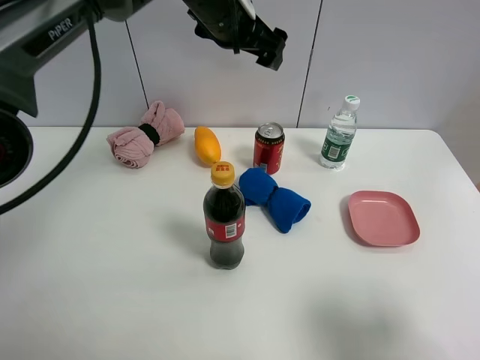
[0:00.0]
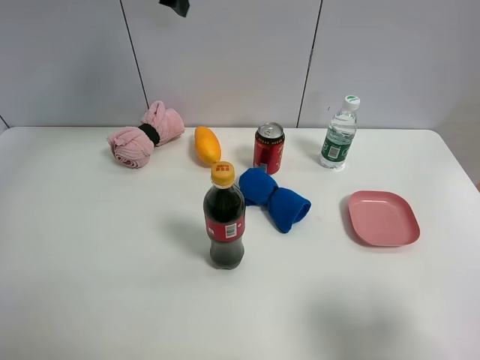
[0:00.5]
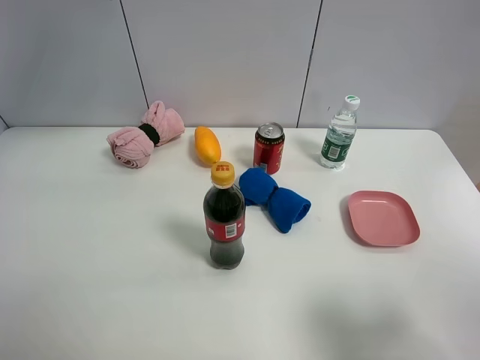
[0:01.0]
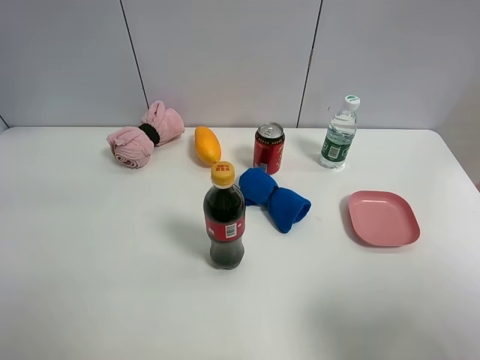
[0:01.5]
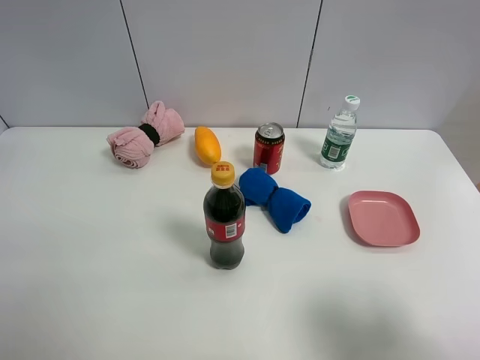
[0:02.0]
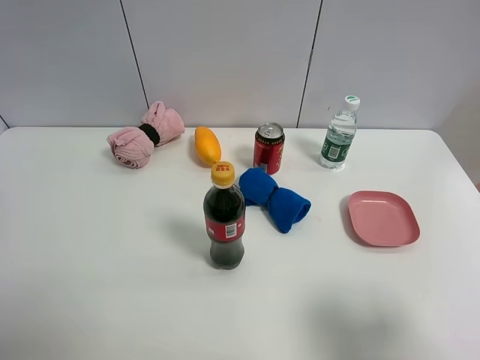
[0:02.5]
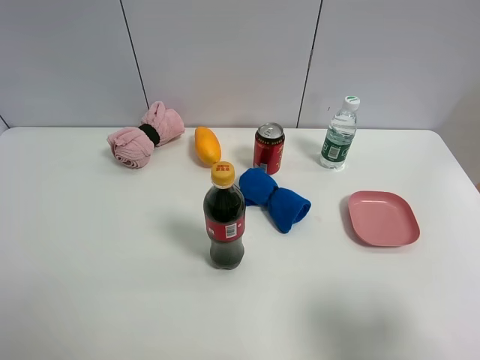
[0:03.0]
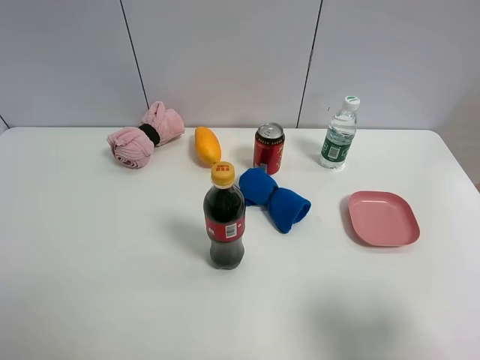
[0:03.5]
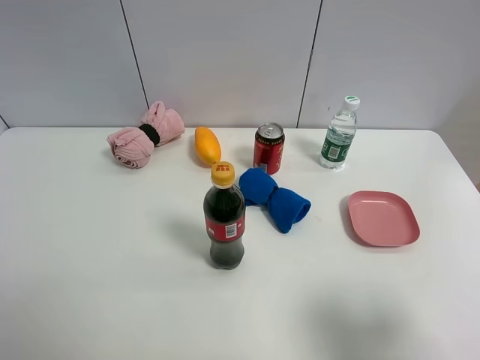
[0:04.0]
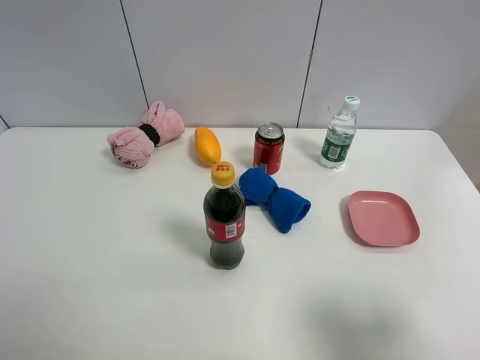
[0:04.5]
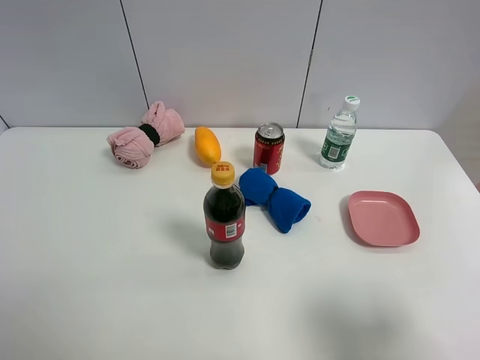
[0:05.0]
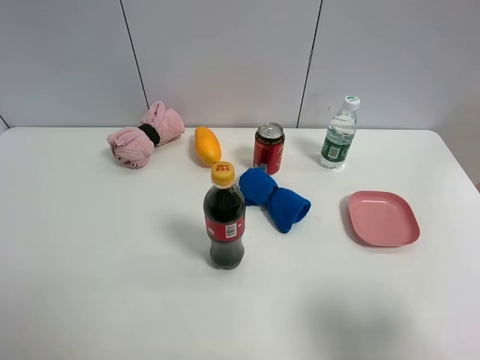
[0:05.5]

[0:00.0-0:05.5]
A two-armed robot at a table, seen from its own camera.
Task of the whole recording: the gripper move the object.
0.0 to 2.0 s: The left gripper travels to the left by about 30 cm.

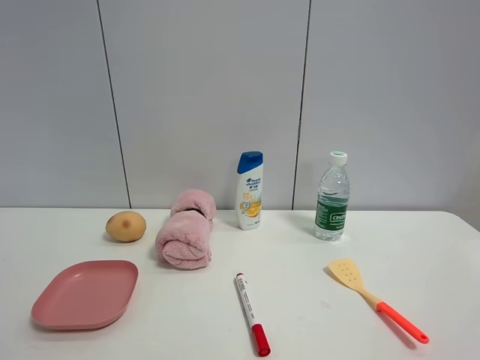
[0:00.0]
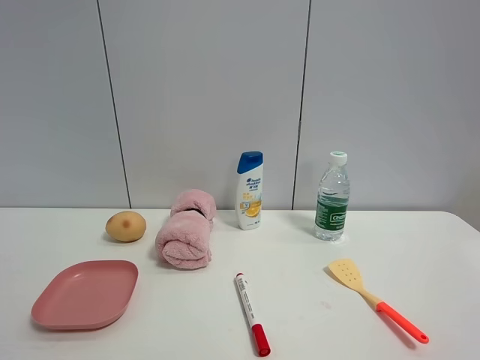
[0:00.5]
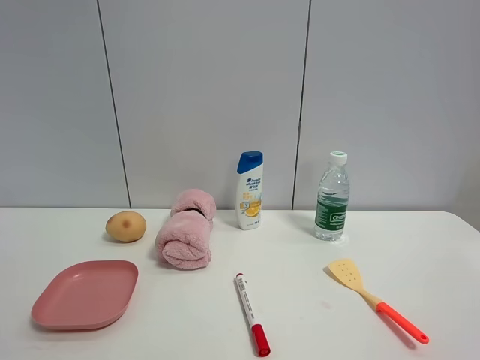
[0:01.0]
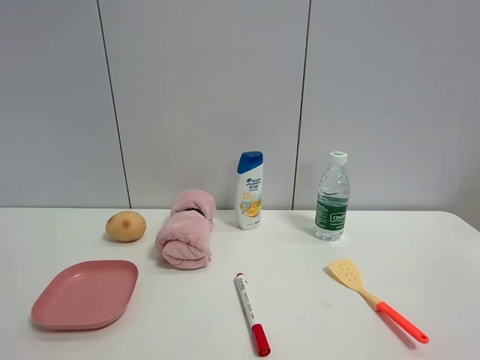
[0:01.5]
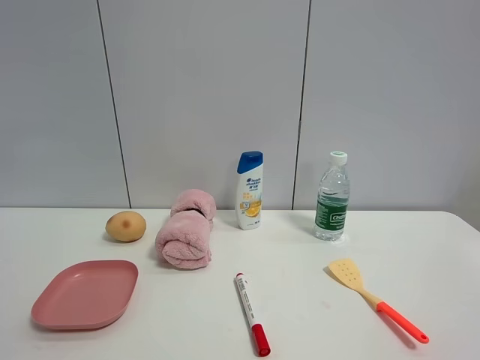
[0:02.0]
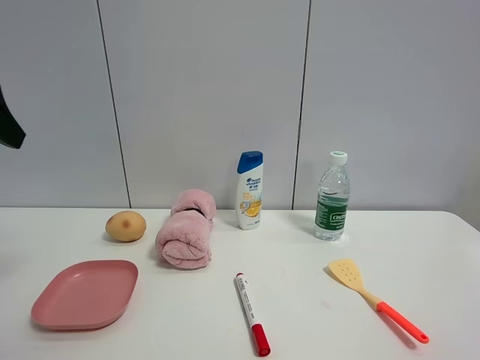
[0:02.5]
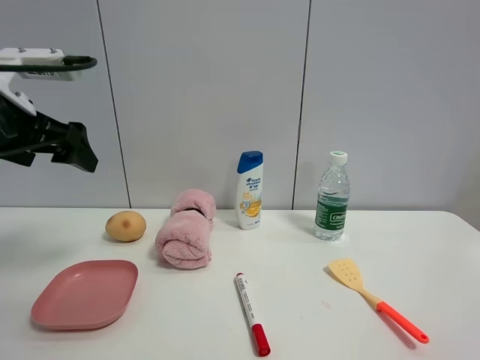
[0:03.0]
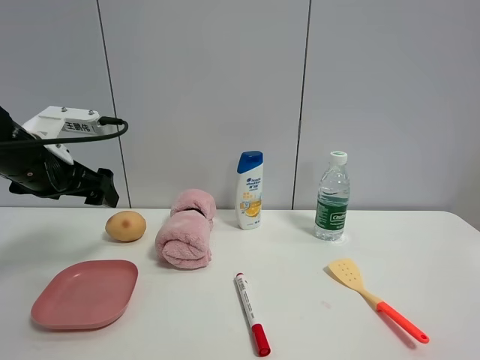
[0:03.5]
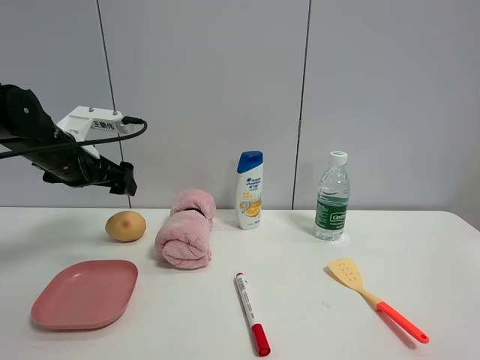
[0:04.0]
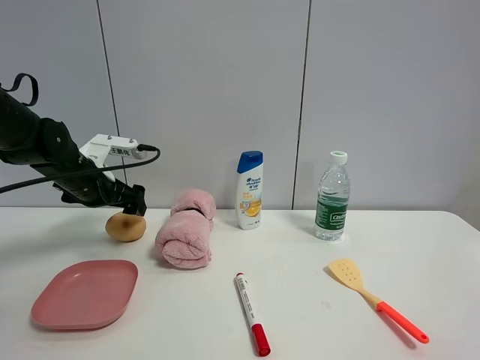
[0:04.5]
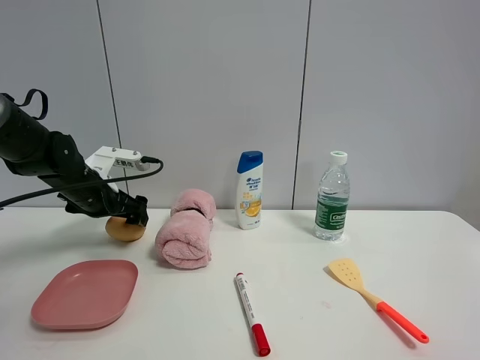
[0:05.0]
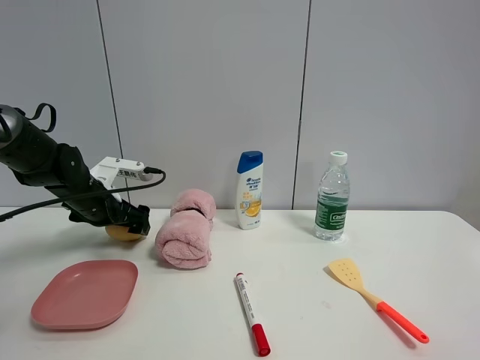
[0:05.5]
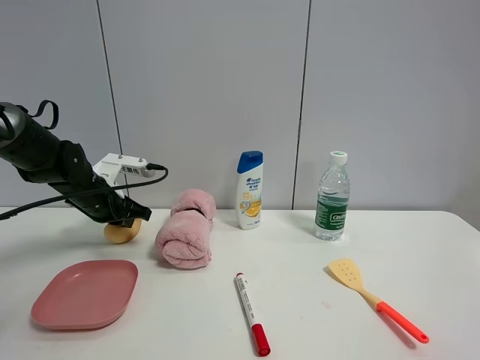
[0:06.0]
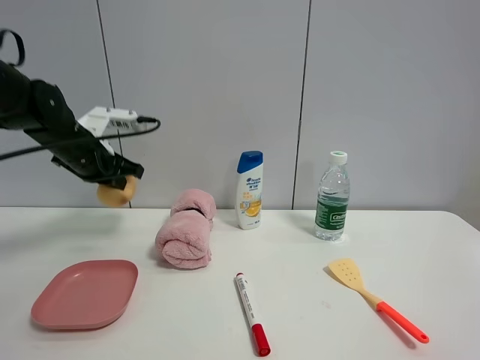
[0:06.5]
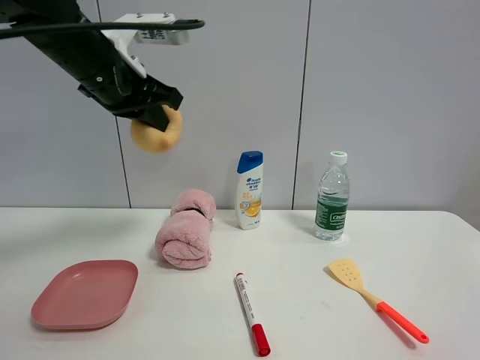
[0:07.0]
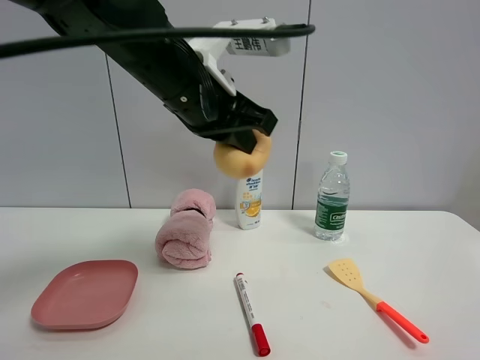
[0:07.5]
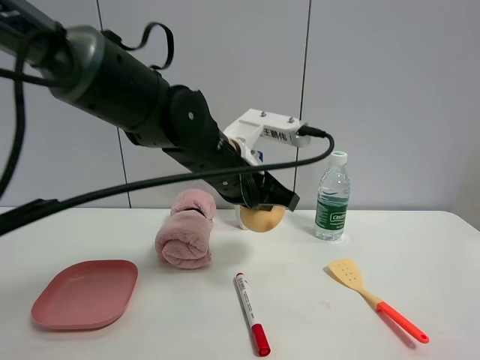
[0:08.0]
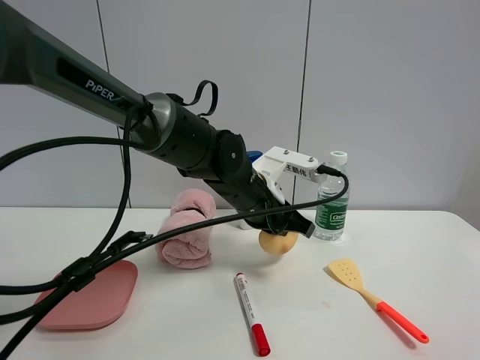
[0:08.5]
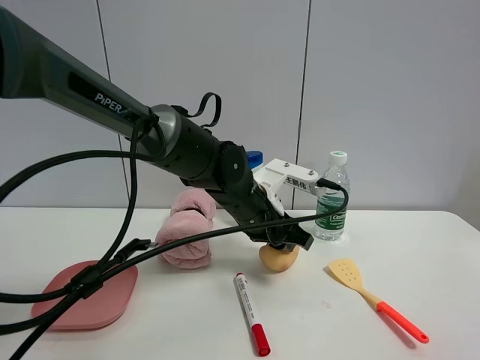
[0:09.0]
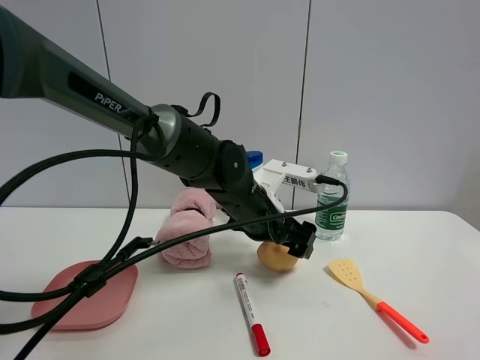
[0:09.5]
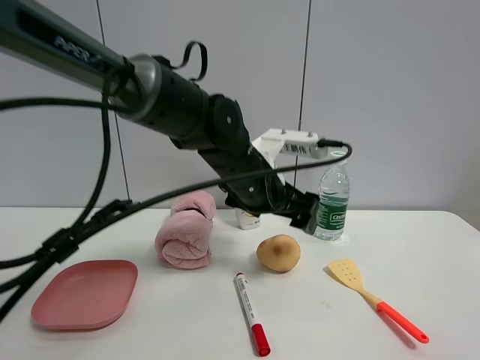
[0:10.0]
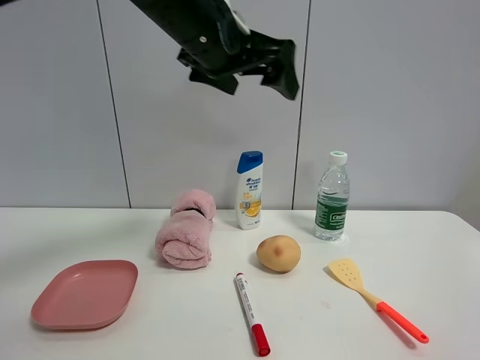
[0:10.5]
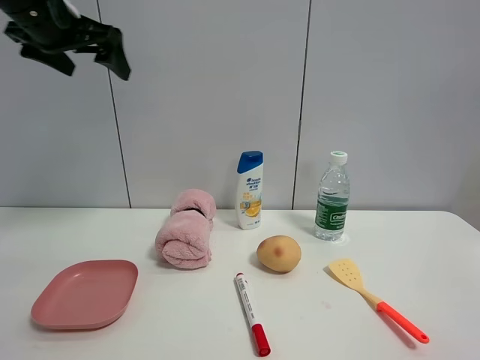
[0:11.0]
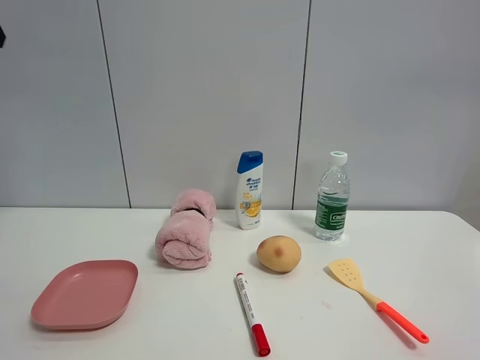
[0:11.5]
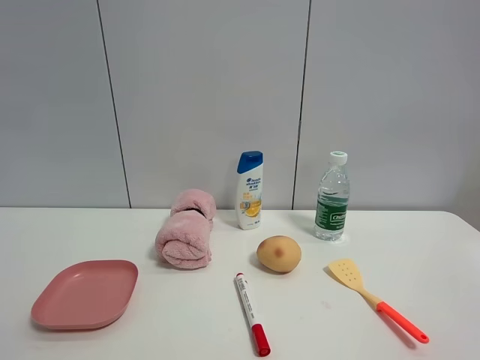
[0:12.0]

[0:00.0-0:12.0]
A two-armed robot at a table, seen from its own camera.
Task of the whole recording: the gripper move the object.
Step, 0.0 to 6.0 s: Grasp the egg yolk pastry with the left gripper.
Step, 6.5 to 9.0 s: Place the egg yolk pastry on the table with the left gripper.
2.0 to 4.0 s: The left gripper travels forward and downward by about 35 cm.
4.0 to 6.0 s: The left gripper goes some 10 cm downward, and closes.
6.0 to 8.0 s: The left gripper moves to the right and backward, about 25 cm.
8.0 to 10.0 s: The left gripper opens up.
10.0 to 12.0 s: The left gripper is displaced to the left, upward and backward by approximately 50 cm.

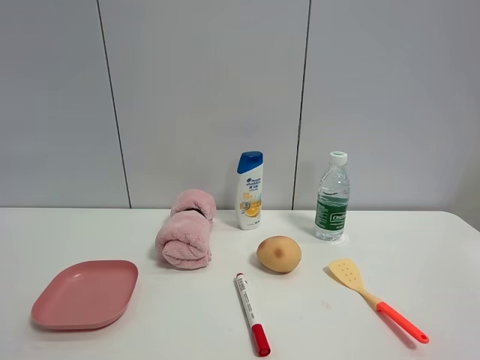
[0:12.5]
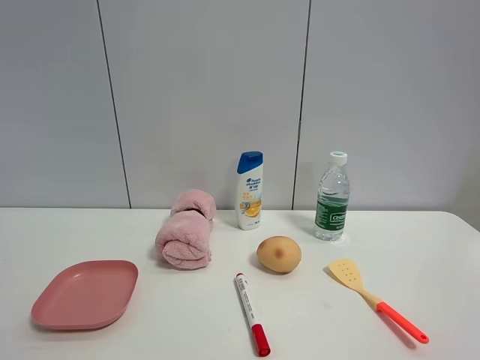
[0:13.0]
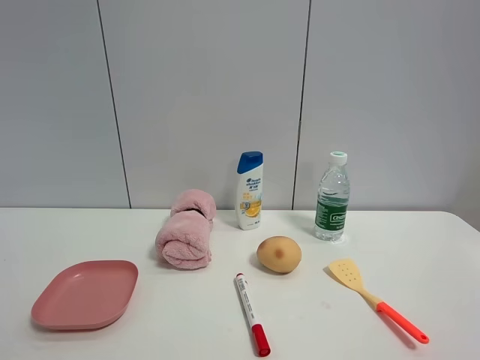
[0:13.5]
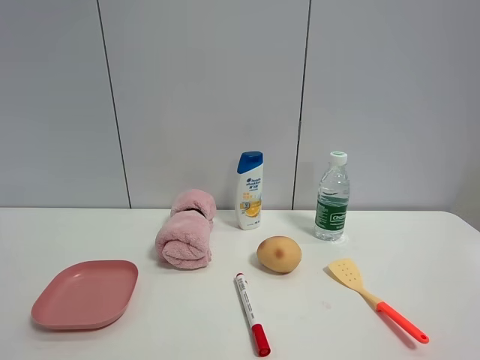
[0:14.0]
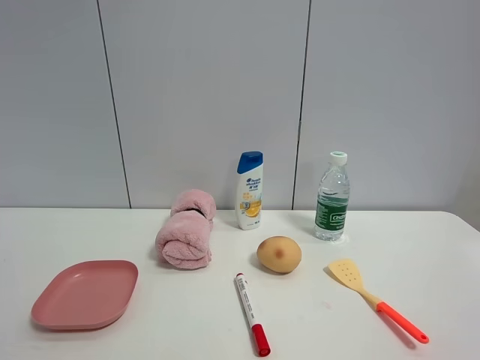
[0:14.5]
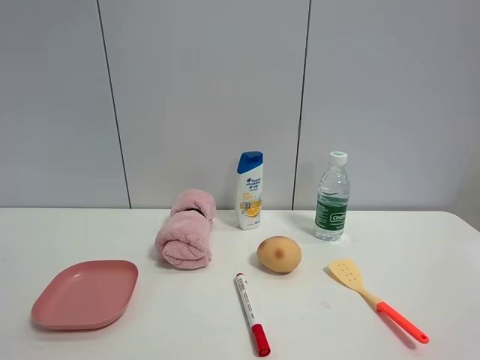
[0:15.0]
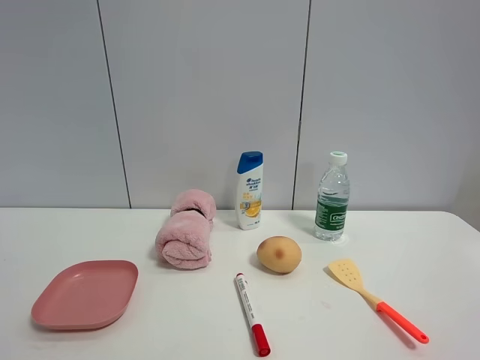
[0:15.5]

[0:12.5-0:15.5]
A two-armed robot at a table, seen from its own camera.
Task of the whole recording: the gripper move the object.
14.0 to 15.5 s: Neither gripper changes place.

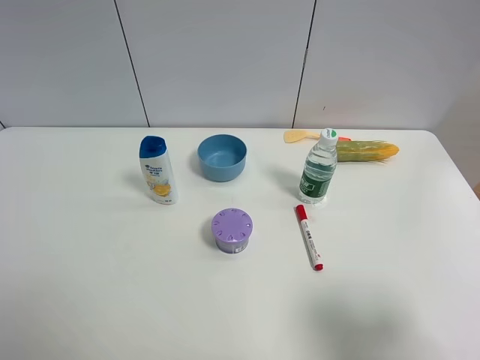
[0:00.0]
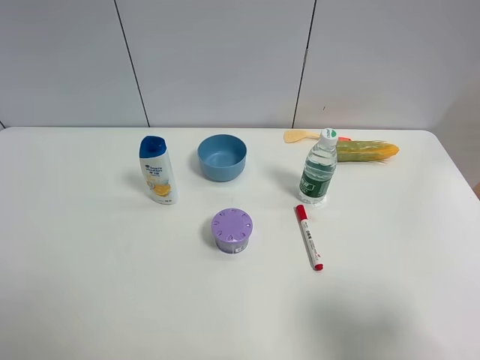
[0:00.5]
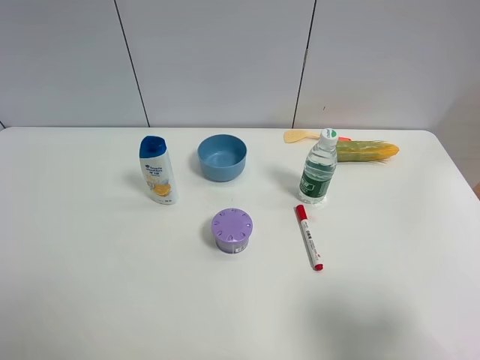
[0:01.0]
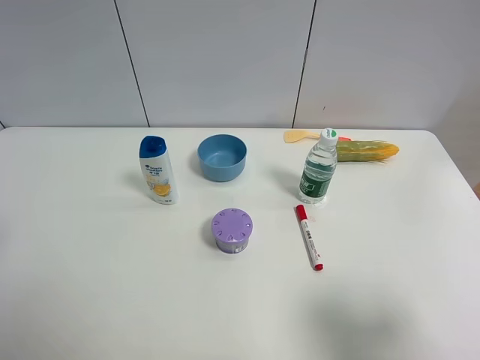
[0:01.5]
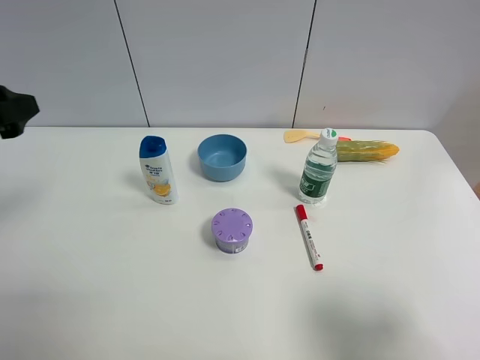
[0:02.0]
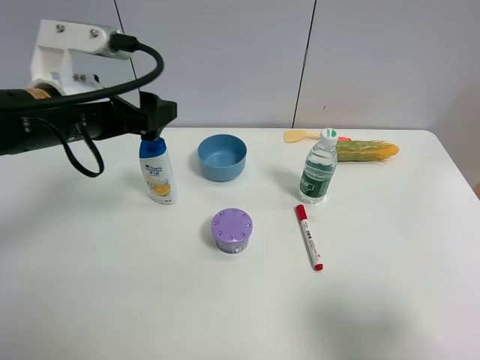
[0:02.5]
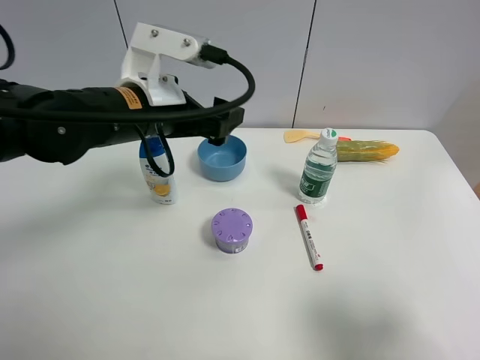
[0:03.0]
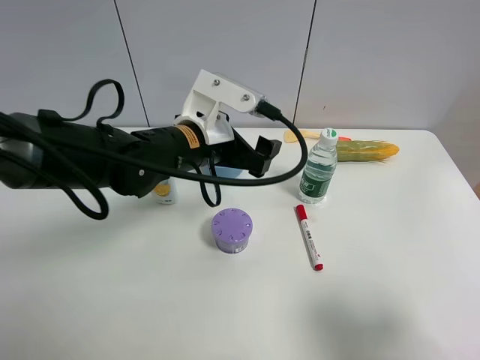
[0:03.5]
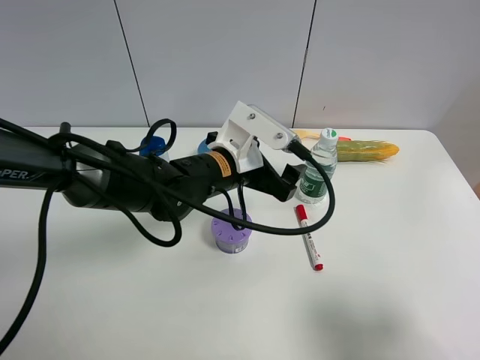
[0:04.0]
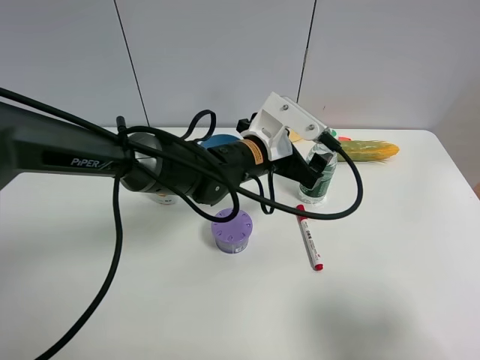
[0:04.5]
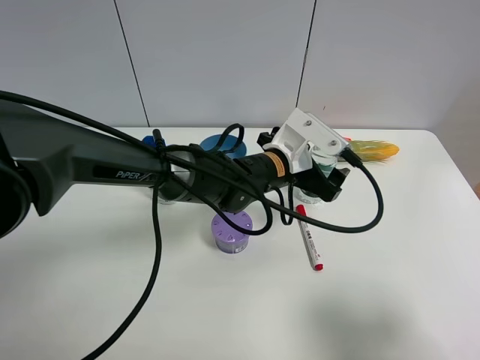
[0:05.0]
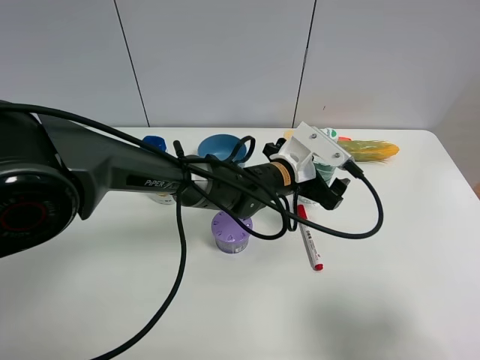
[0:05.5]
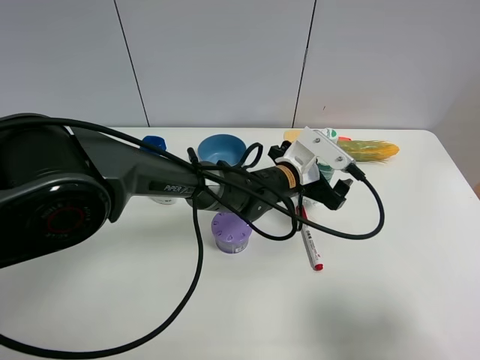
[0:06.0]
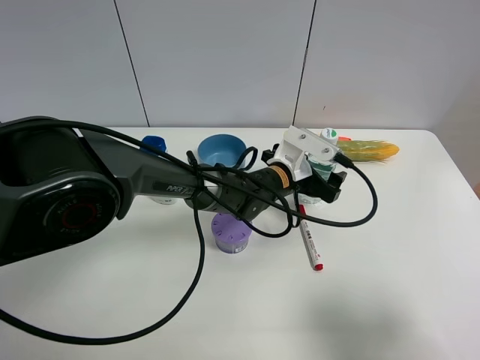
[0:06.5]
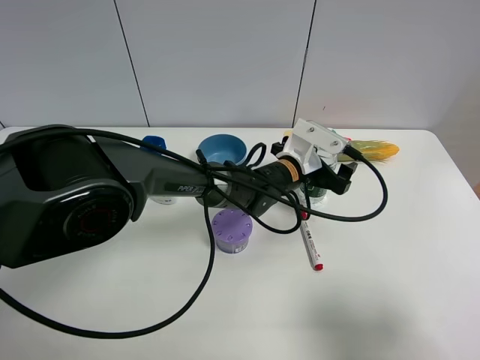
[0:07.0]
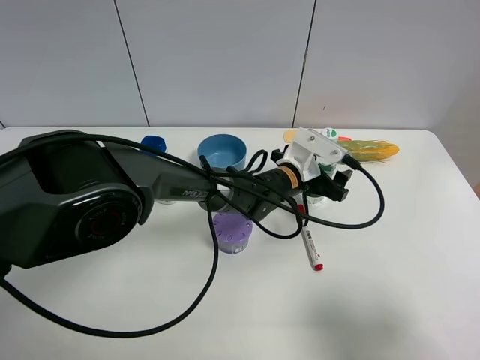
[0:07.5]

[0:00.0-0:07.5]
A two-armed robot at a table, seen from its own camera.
Task of the whole recording: the gripper move the object.
0.0 to 2.0 s: The left gripper goes about 20 cm forward.
2.0 to 4.0 s: The left gripper is displaced to the right and downward by approximately 30 cm.
4.0 to 5.5 s: The left gripper heads to the right and downward, covering some 10 cm.
5.5 to 7.5 s: The left gripper changes place by about 5 cm, and closes up.
